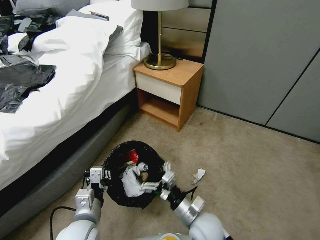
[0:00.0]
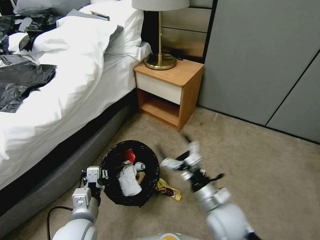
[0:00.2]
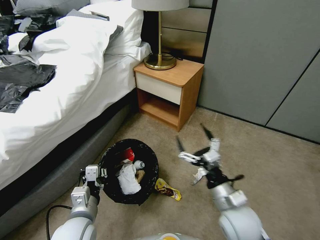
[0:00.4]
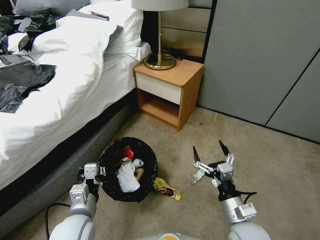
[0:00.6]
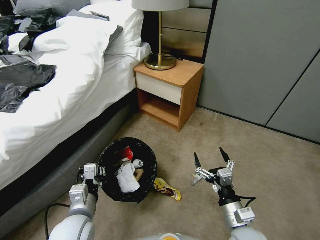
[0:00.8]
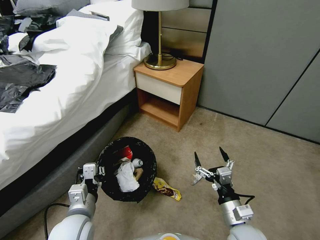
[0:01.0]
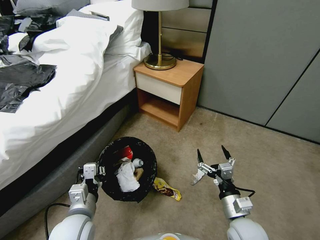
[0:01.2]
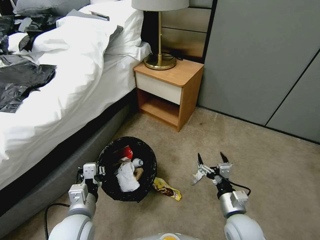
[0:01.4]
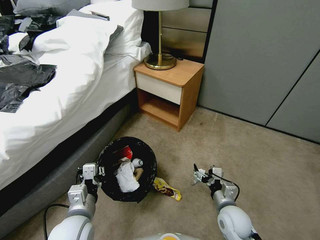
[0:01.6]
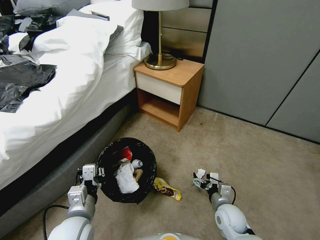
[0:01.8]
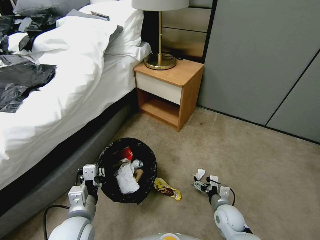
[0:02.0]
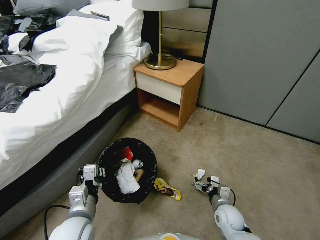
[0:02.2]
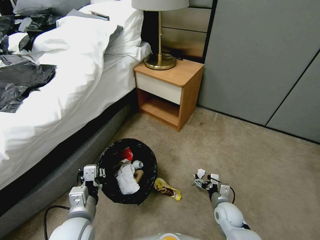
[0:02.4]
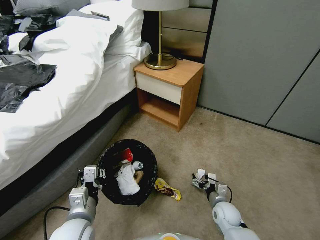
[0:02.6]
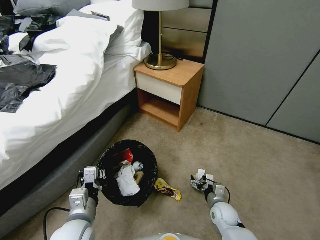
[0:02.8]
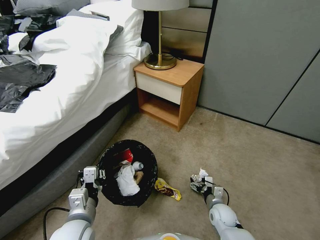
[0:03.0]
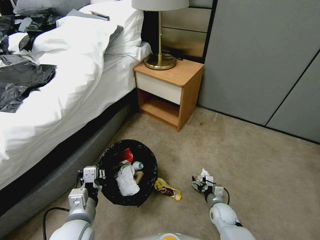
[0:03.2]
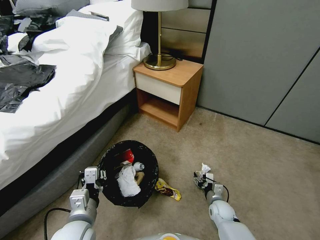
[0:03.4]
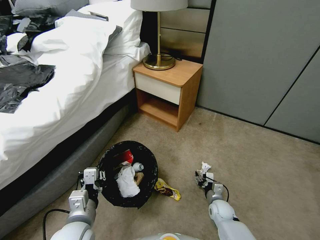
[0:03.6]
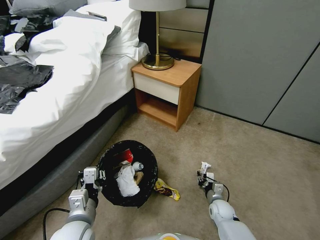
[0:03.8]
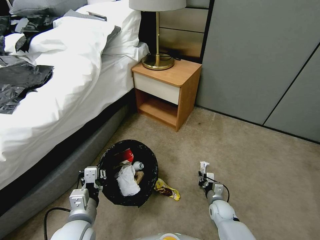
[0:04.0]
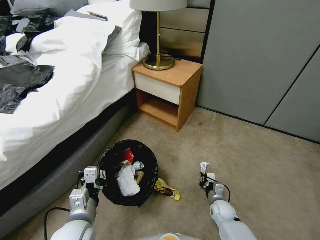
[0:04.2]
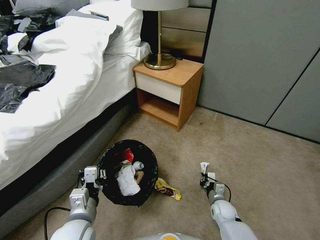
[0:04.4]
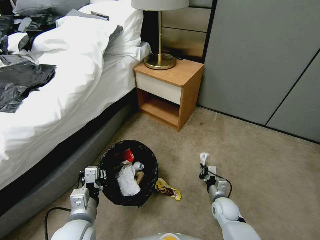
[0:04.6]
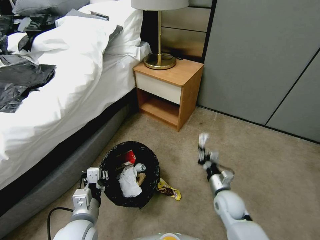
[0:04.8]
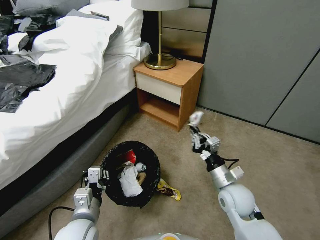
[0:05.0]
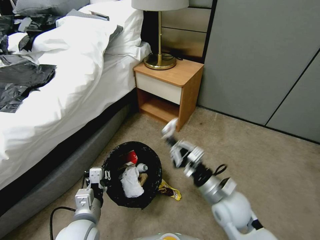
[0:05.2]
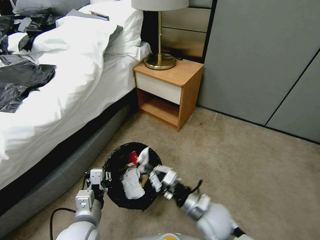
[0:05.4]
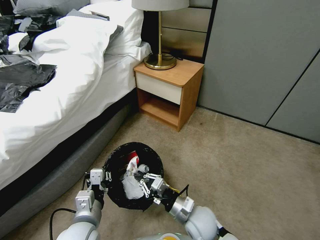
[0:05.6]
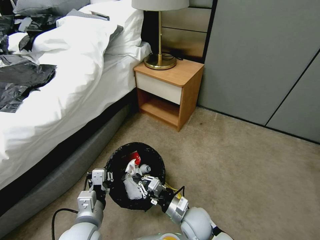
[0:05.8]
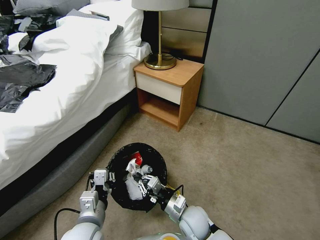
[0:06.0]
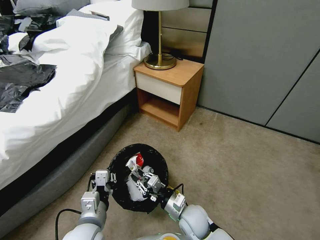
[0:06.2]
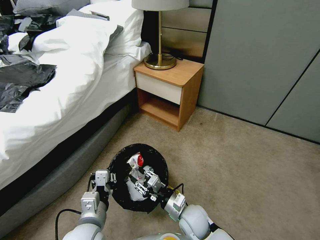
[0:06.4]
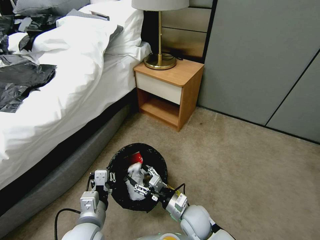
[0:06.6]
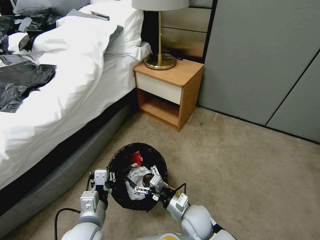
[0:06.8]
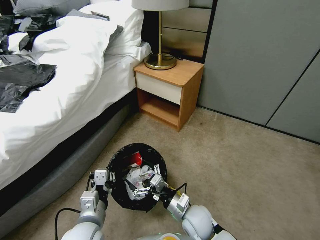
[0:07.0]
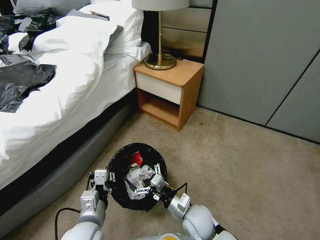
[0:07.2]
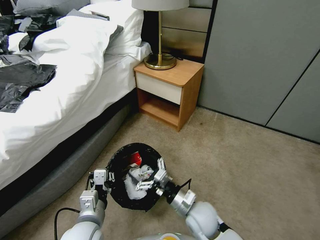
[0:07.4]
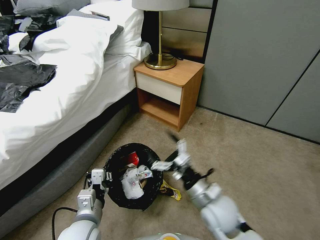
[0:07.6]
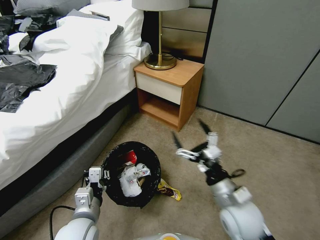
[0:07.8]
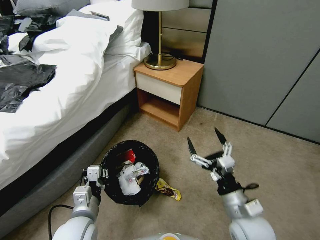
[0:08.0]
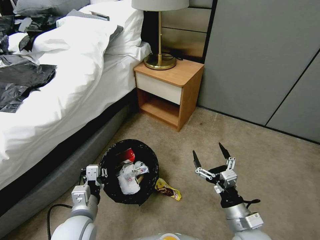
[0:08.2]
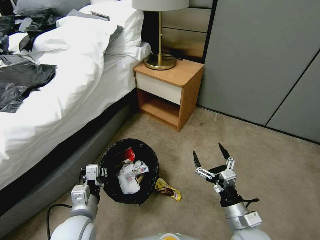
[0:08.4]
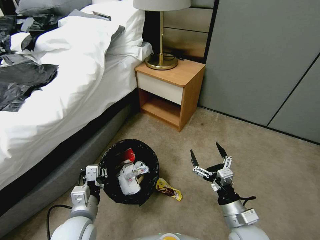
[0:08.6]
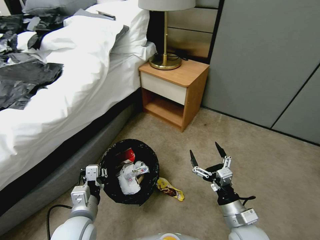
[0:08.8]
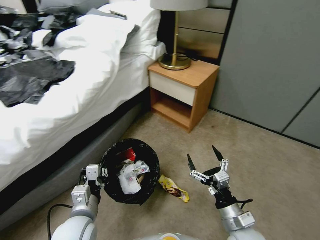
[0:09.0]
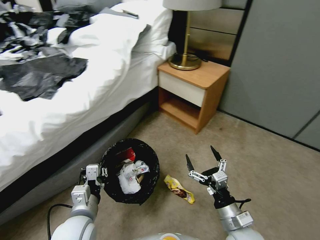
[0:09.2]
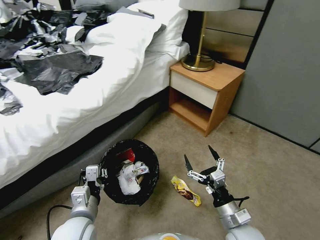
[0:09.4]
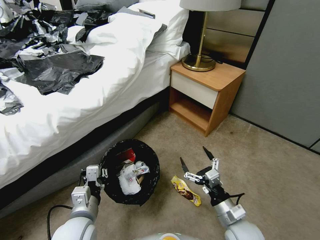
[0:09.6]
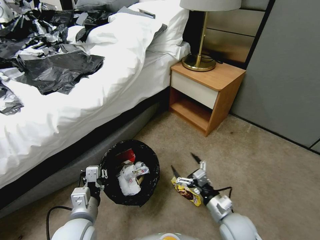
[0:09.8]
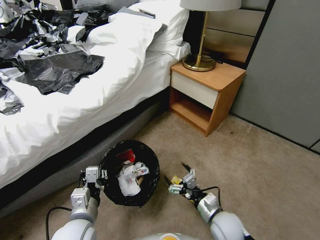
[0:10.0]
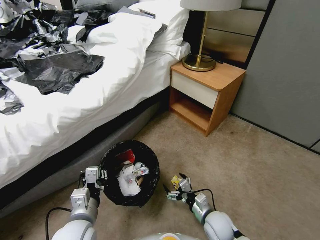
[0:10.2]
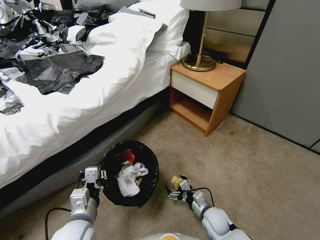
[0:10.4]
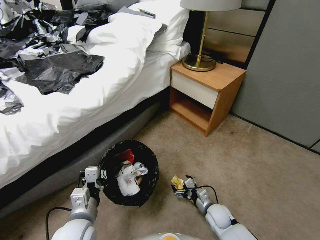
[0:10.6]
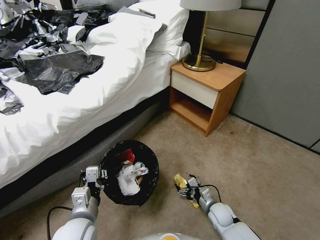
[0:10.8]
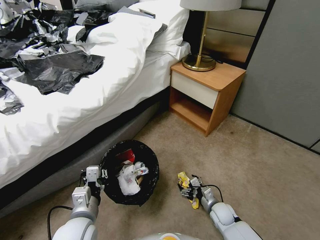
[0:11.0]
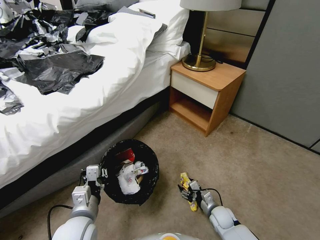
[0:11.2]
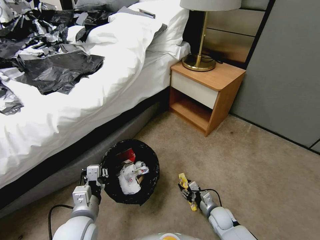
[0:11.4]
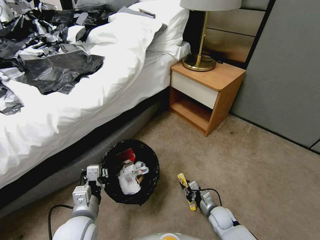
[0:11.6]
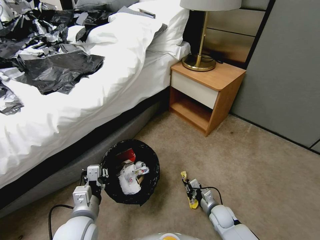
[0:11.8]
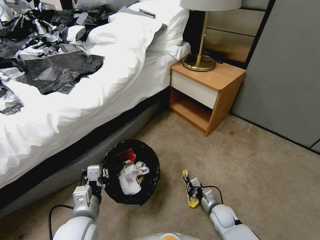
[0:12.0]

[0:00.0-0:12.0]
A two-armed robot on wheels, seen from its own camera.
Task of the whole recording: Pick up the trash bin, then pick up the garbage from the floor and place it into the trash bin.
0:00.0 to 0:01.6: The right gripper heads to the right, covering about 10 cm.
0:01.6 to 0:03.0: The right gripper travels downward by approximately 10 cm.
0:03.0 to 0:04.4: The right gripper closes its fingers.
0:04.4 to 0:06.0: The right gripper goes some 20 cm to the left and upward.
0:06.0 to 0:07.6: The right gripper moves upward and to the right, approximately 15 cm, and opens.
0:07.6 to 0:09.0: The right gripper travels backward and to the right by roughly 10 cm.
0:09.0 to 0:10.4: The right gripper shifts about 15 cm downward and forward.
0:10.4 to 0:12.0: The right gripper ends up approximately 5 cm from where it was, and closes its fingers.

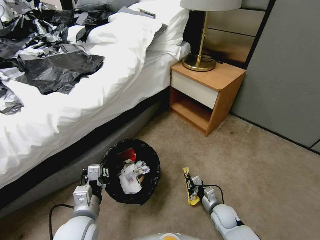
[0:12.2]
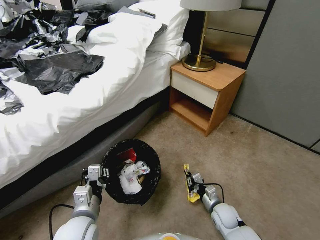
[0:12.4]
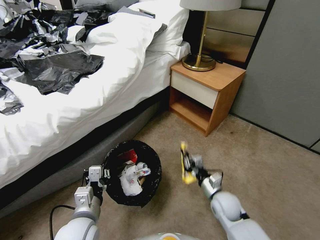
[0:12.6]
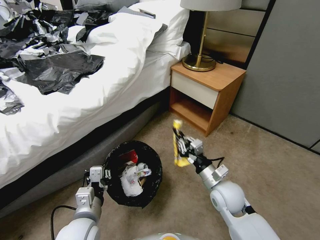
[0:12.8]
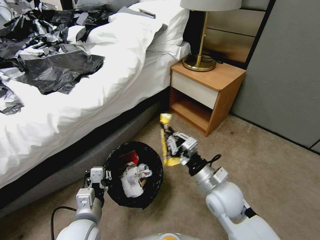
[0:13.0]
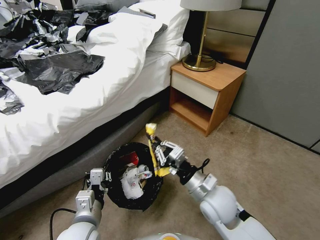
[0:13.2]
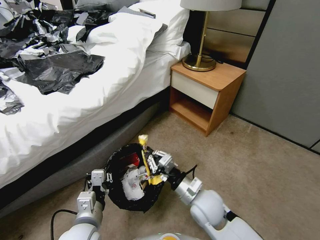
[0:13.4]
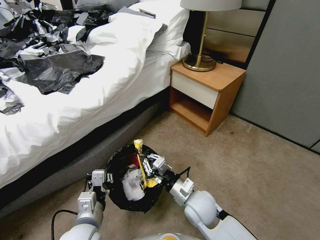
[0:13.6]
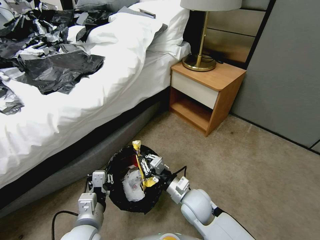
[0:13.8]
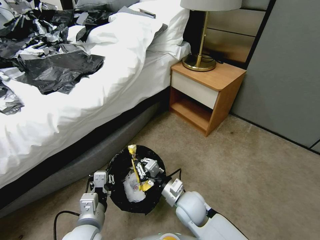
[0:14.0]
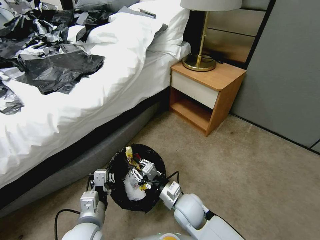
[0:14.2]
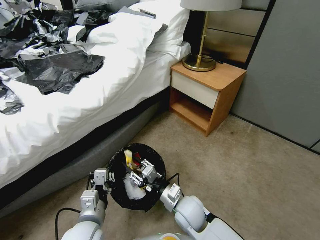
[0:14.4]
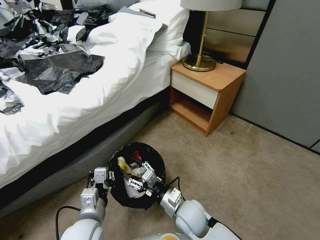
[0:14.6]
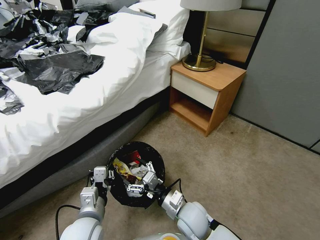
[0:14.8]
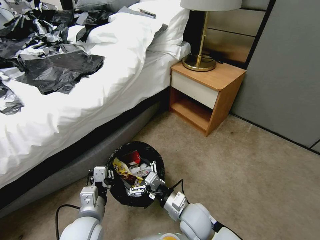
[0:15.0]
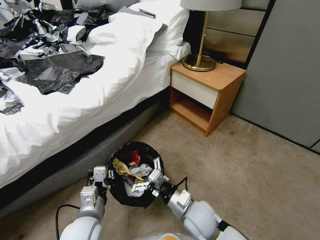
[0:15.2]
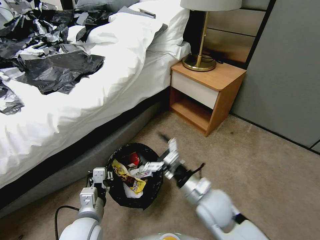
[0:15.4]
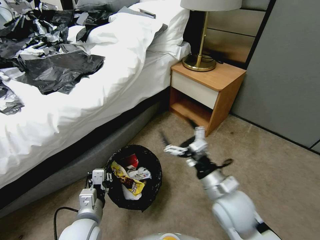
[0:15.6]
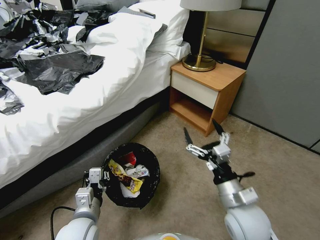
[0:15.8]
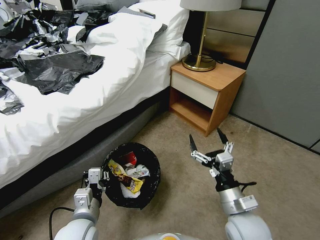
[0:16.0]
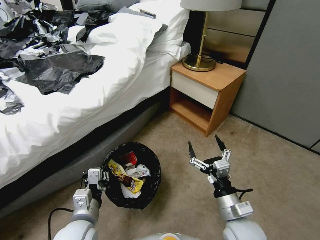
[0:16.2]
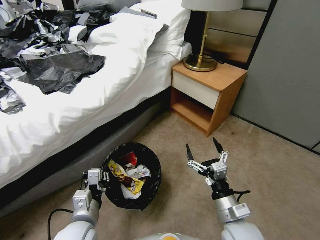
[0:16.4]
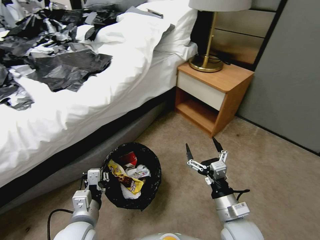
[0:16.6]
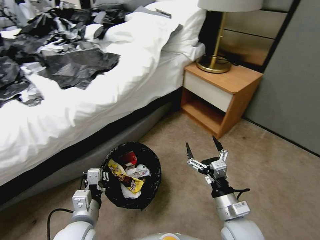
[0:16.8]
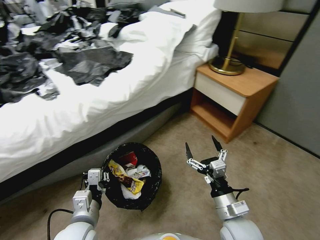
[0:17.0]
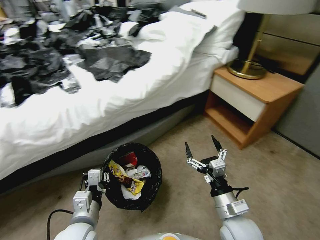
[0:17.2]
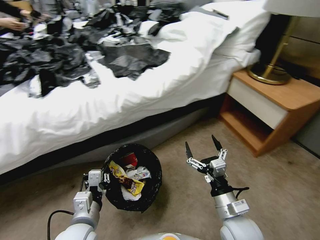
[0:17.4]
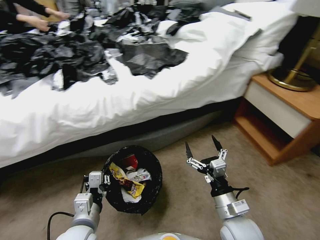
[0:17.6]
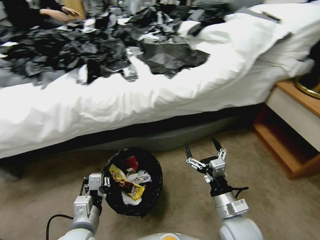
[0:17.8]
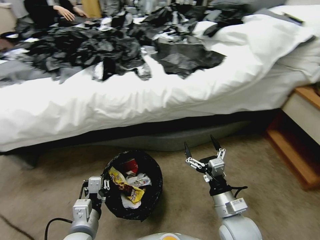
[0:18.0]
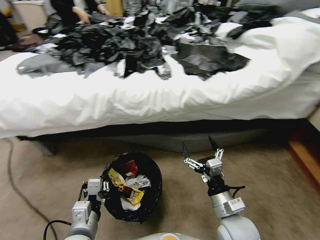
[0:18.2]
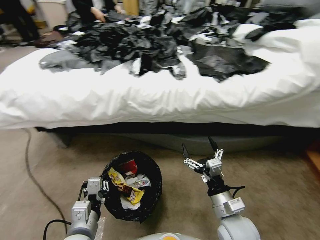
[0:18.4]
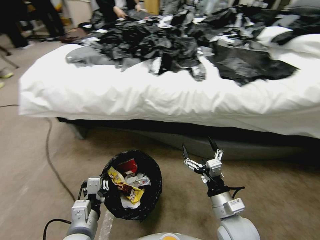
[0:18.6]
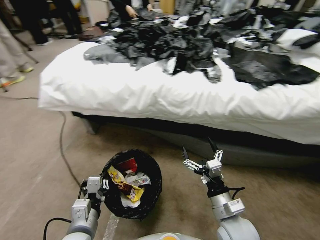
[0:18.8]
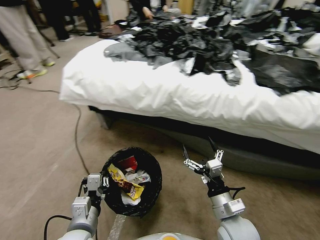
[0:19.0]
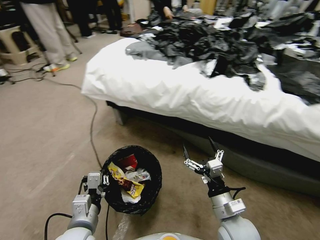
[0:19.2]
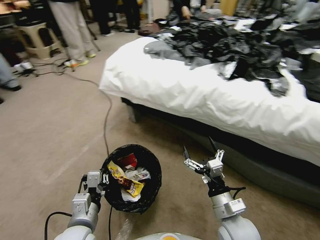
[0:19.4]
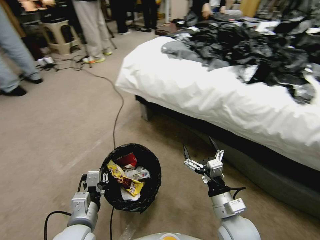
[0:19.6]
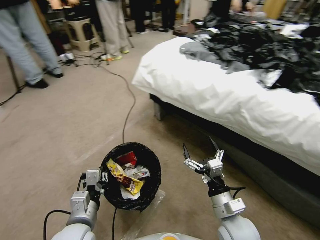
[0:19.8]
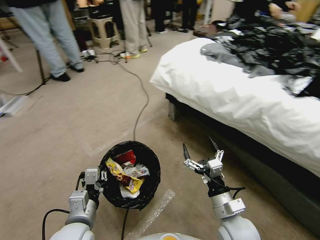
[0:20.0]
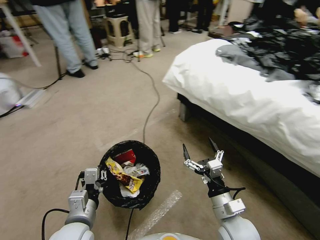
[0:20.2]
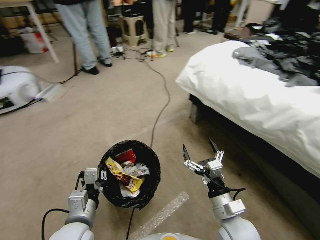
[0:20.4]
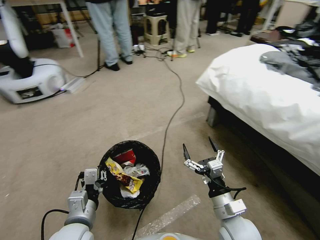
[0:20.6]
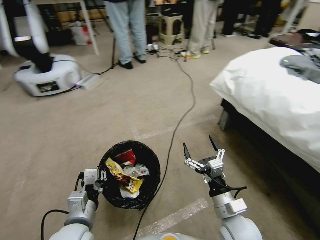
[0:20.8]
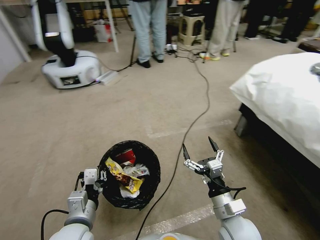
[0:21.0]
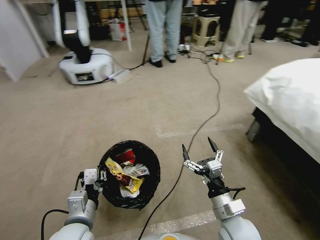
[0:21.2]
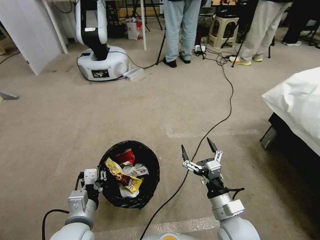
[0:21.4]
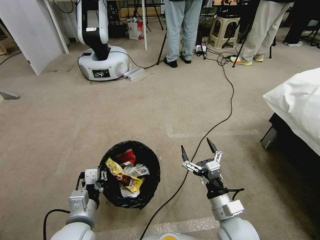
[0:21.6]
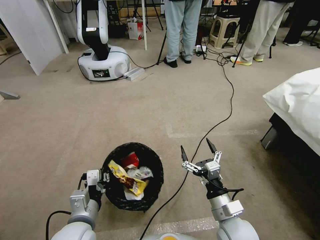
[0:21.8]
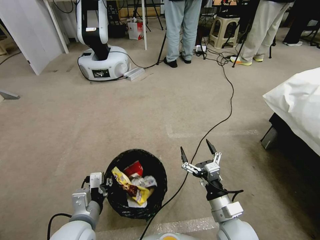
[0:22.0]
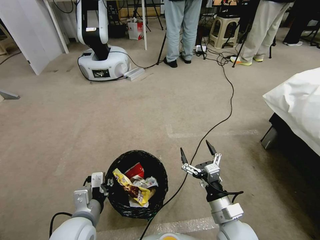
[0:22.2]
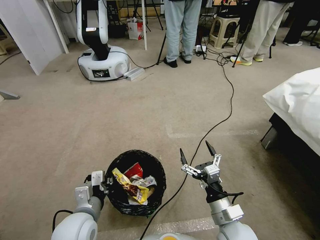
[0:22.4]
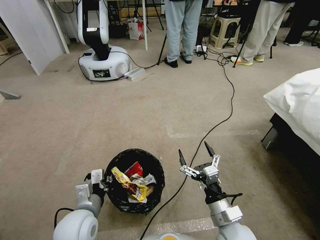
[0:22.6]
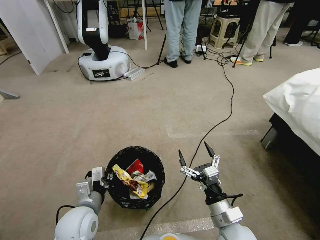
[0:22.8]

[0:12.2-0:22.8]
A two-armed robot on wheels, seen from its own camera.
Task of the whole recording: Pick up the trash bin, then pick up the garbage from the floor and place it into the trash bin.
0:12.2 to 0:13.8: The right gripper heads upward and to the left, covering about 25 cm.
0:13.8 to 0:15.2: The right gripper opens.
0:15.2 to 0:16.8: The right gripper moves to the right and backward, about 10 cm.
